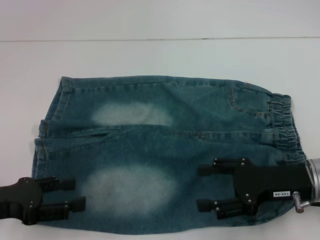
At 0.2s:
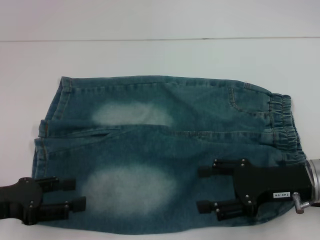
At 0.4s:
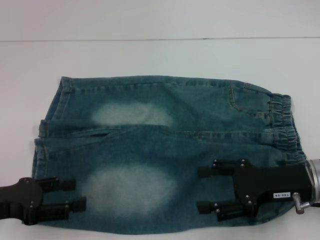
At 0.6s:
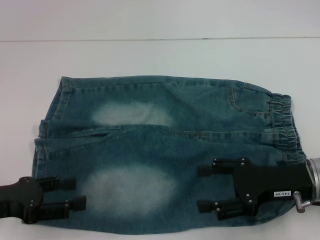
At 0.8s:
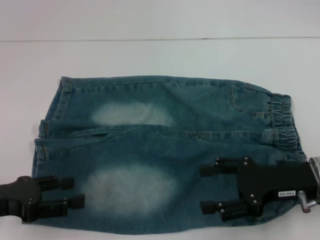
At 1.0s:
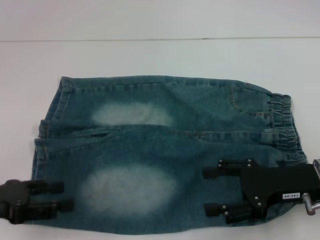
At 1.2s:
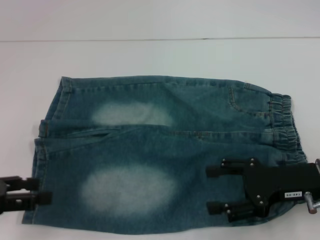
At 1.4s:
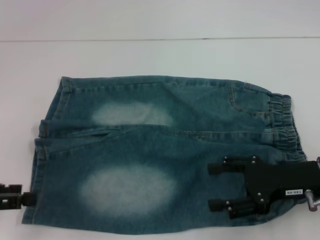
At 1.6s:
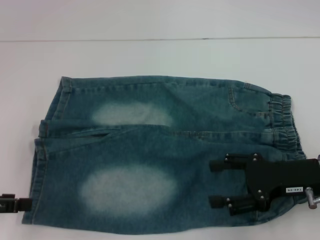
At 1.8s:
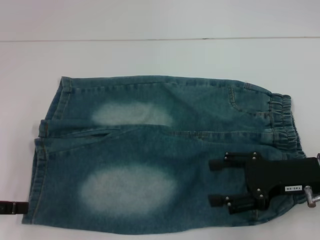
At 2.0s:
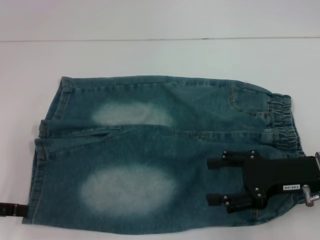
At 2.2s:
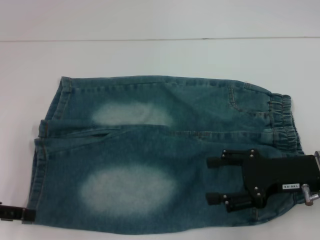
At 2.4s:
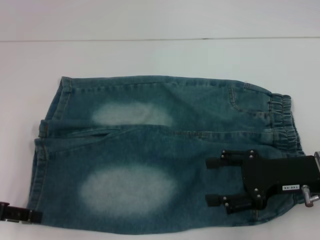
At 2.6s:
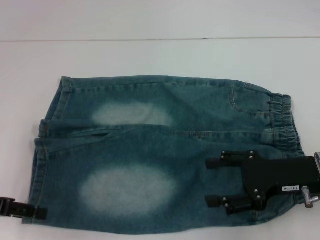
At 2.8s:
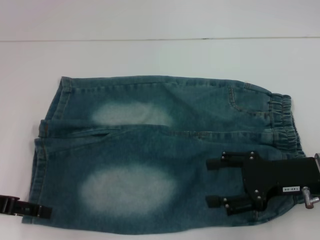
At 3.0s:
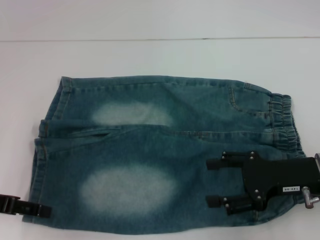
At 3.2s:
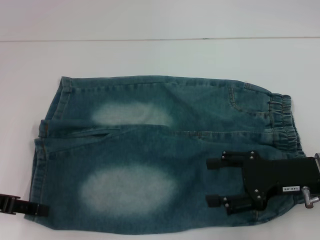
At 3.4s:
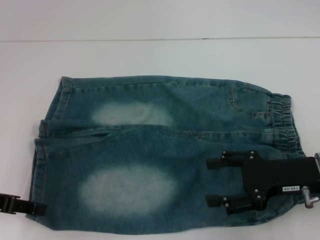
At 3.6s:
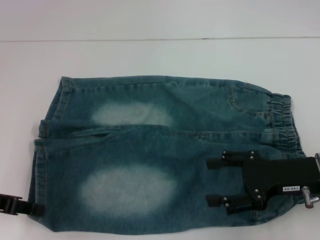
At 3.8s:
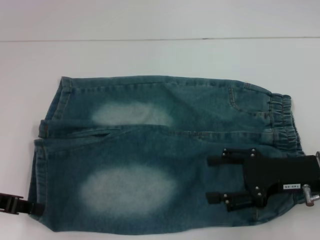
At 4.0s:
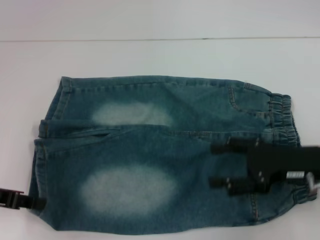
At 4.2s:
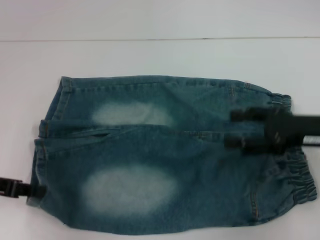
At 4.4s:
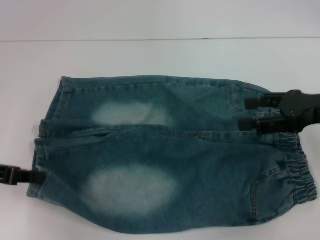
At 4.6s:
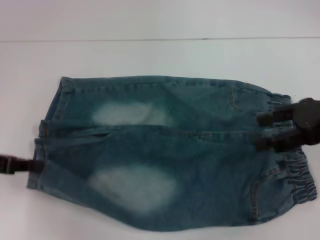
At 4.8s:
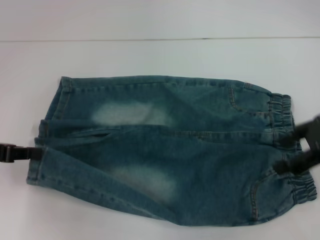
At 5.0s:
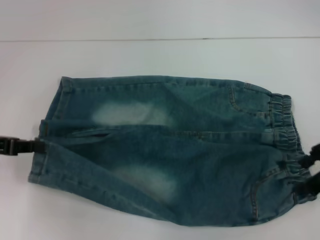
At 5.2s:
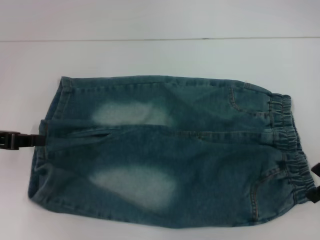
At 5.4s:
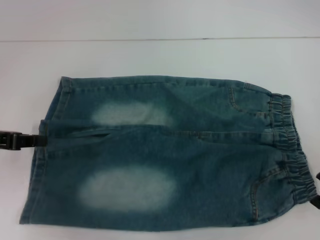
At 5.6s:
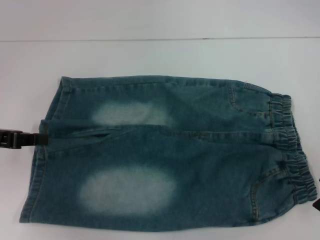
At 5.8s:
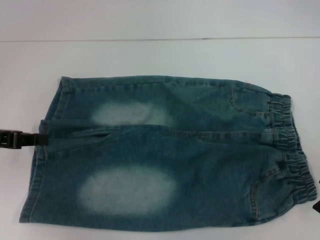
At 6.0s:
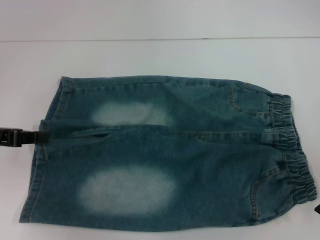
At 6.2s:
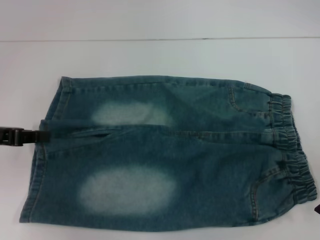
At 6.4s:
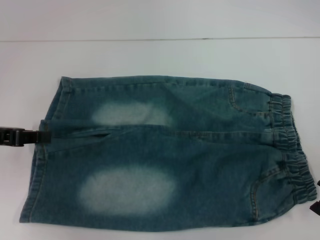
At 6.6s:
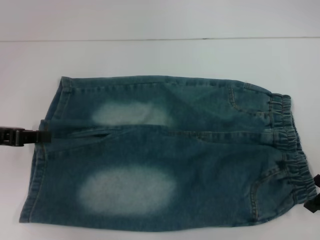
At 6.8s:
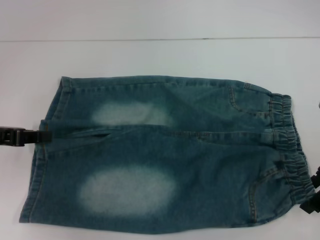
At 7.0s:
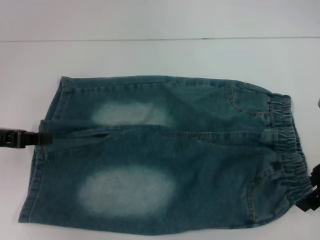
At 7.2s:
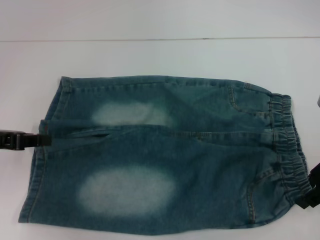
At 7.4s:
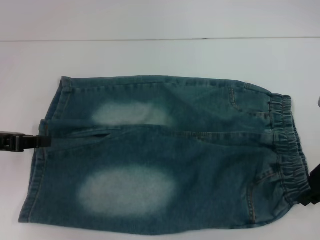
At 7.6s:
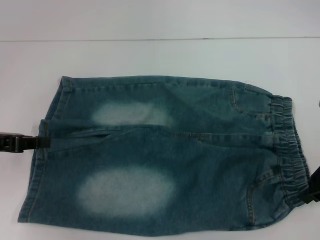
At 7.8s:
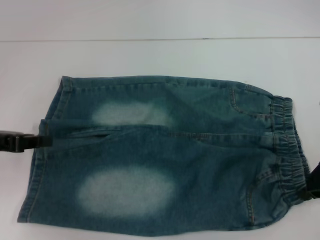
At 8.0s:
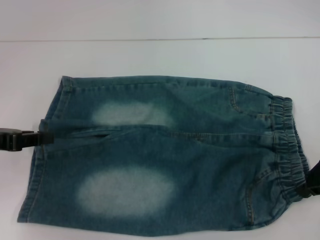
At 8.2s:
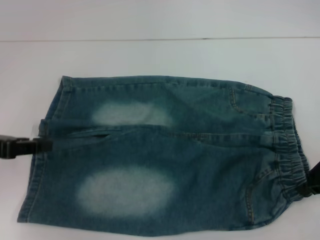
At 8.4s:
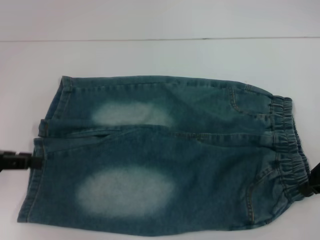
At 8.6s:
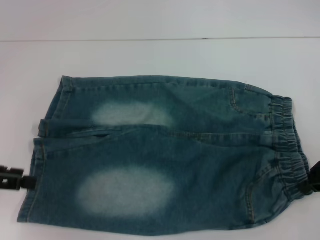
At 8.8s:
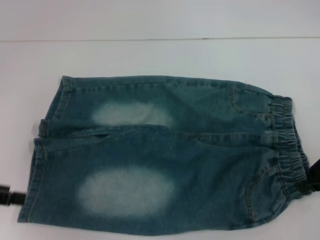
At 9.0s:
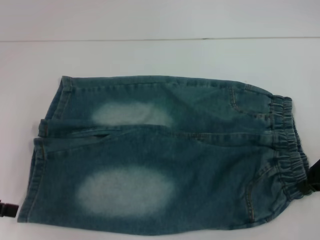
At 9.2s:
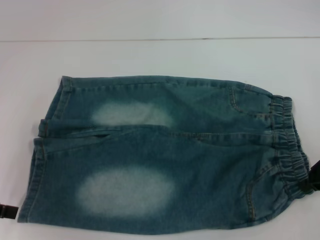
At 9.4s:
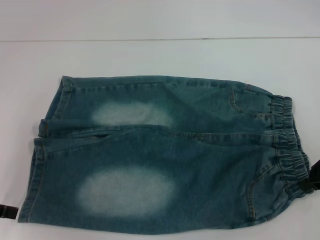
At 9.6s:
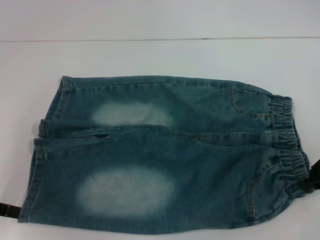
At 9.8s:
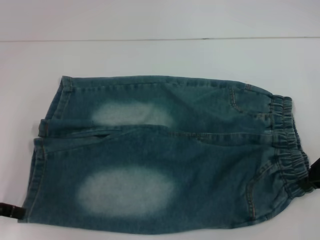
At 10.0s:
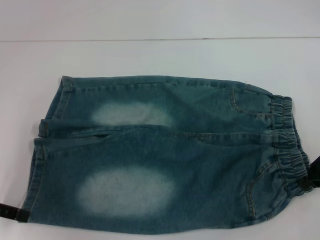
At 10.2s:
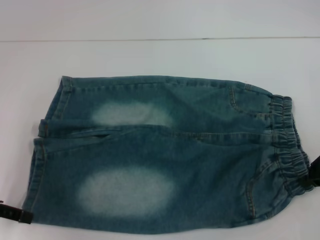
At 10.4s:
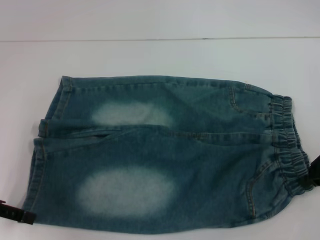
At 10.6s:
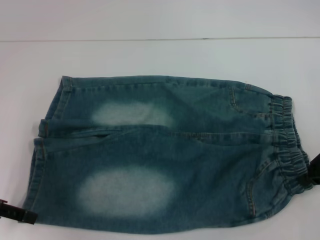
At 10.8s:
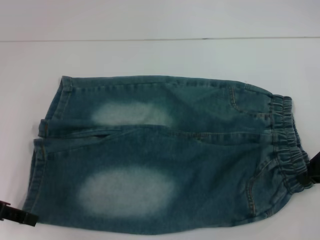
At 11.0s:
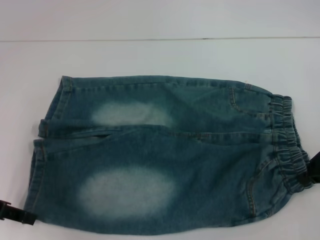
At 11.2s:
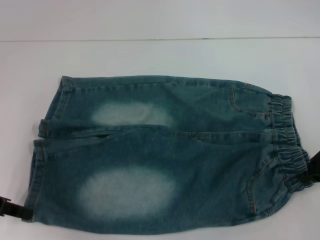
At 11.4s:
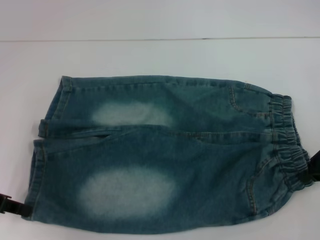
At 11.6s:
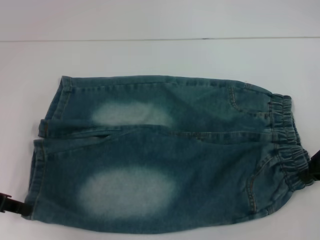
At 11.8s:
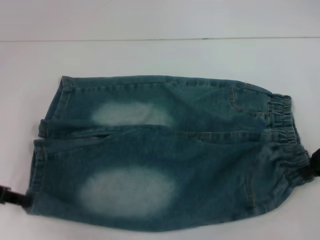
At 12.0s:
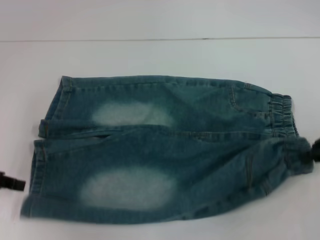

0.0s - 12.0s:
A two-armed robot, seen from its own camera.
Step, 0.0s - 7.8s: Hold the lower right waistband with your right hand.
0.0s - 1.6s: The left gripper changes place by approximately 5 cm.
1.6s - 3.0s: The left gripper changes place by approximately 5 cm.
3.0s - 4.4s: The right gripper goes roughly 10 cm upward; the left gripper closes.
6.0s - 7.6s: The right gripper closes its fingers.
7.6s - 9.0s: The left gripper moves roughly 5 cm, and opens.
9.0s - 10.4s: The grippers stay close to where they were, moving slightly.
10.4s - 12.0s: The left gripper closes its fingers.

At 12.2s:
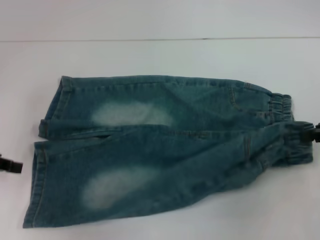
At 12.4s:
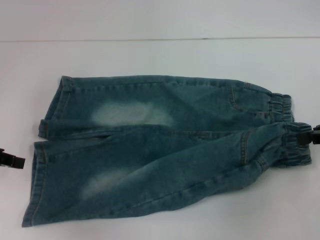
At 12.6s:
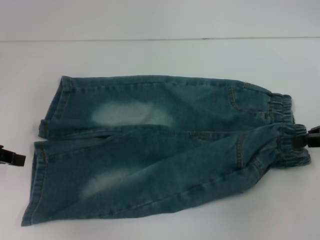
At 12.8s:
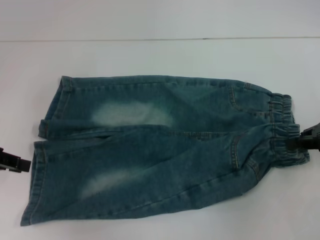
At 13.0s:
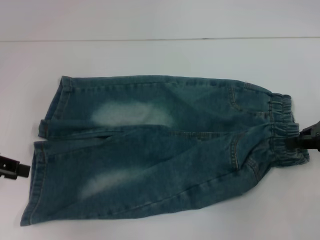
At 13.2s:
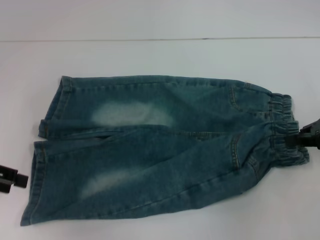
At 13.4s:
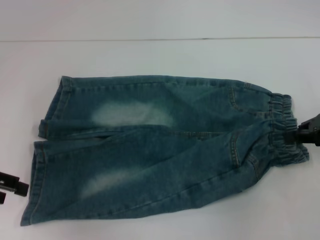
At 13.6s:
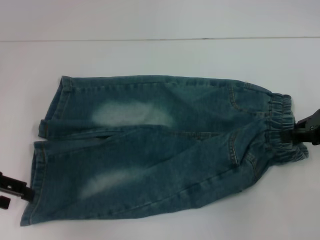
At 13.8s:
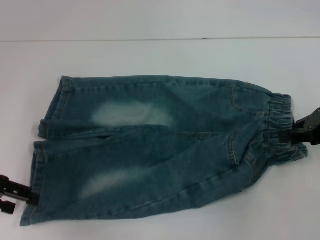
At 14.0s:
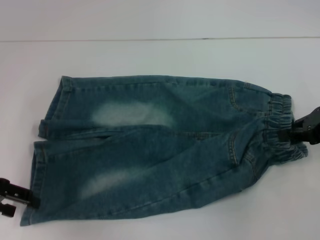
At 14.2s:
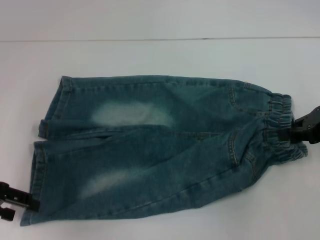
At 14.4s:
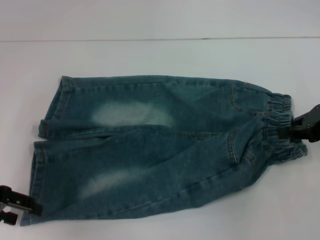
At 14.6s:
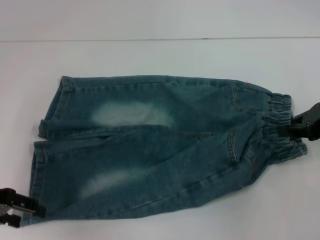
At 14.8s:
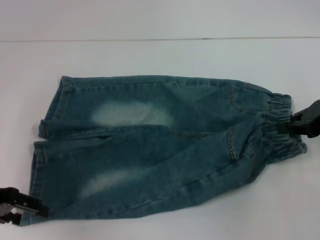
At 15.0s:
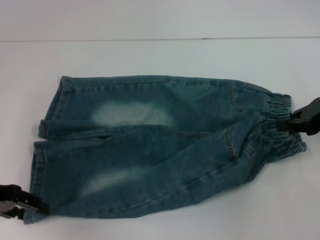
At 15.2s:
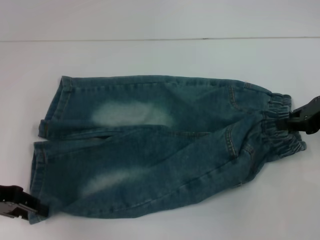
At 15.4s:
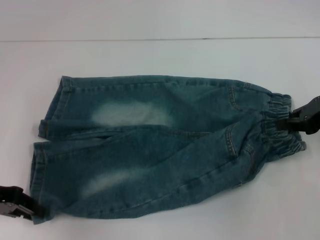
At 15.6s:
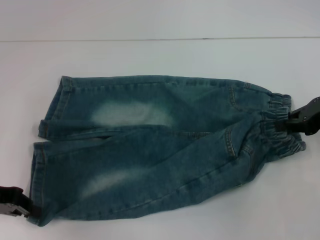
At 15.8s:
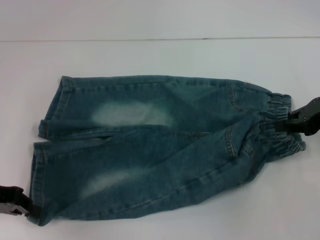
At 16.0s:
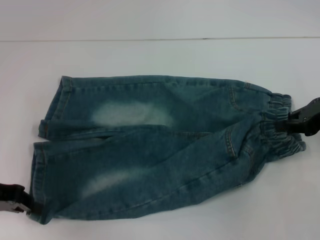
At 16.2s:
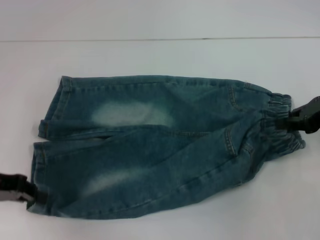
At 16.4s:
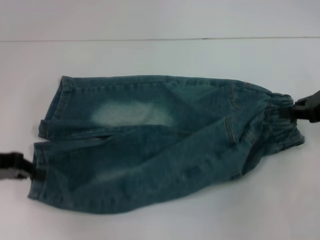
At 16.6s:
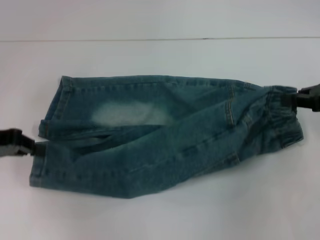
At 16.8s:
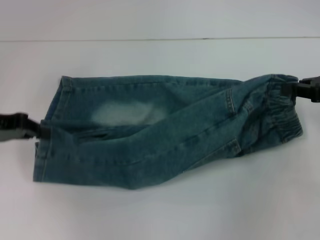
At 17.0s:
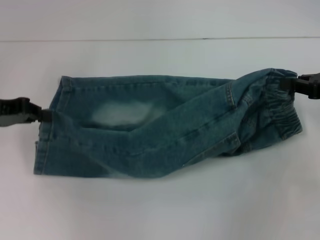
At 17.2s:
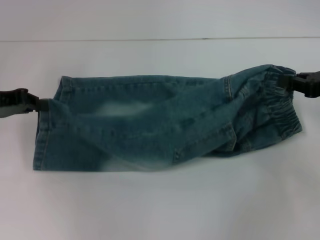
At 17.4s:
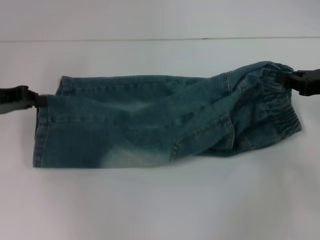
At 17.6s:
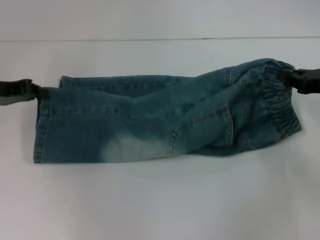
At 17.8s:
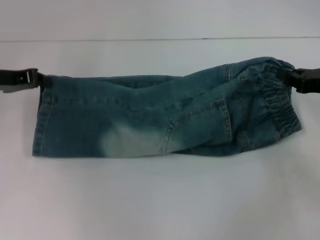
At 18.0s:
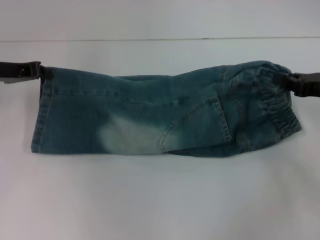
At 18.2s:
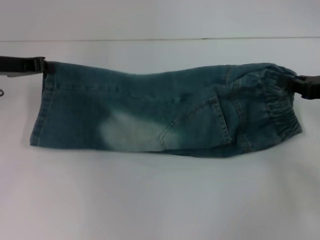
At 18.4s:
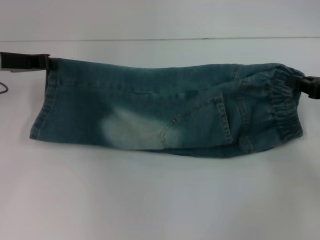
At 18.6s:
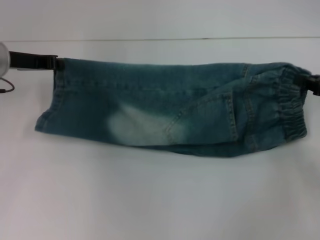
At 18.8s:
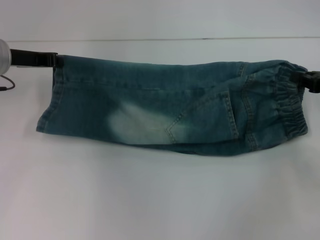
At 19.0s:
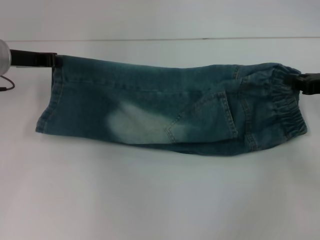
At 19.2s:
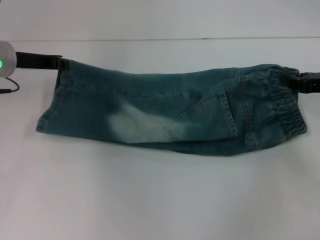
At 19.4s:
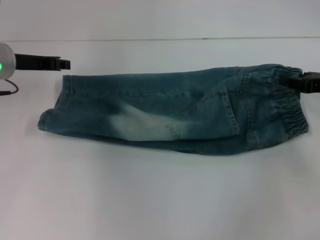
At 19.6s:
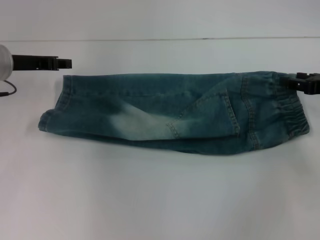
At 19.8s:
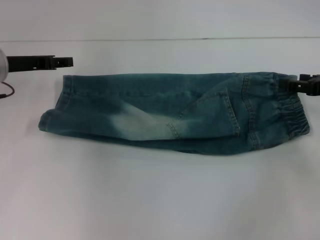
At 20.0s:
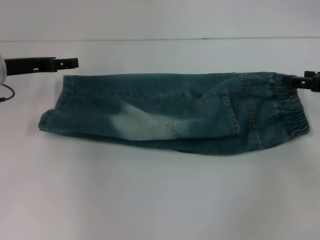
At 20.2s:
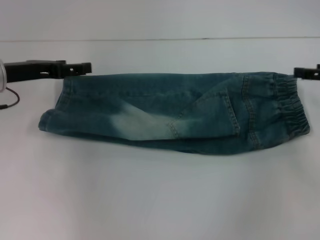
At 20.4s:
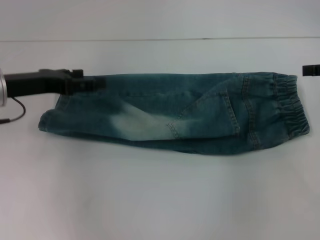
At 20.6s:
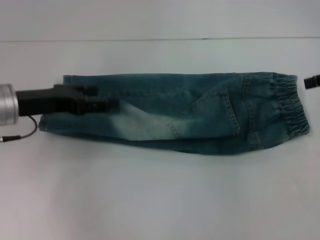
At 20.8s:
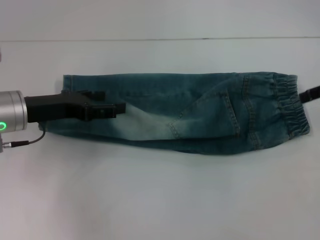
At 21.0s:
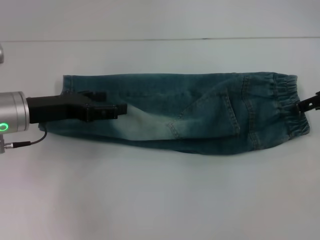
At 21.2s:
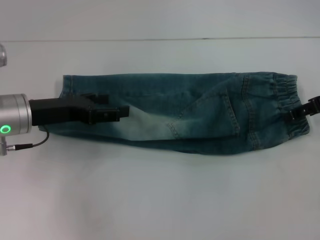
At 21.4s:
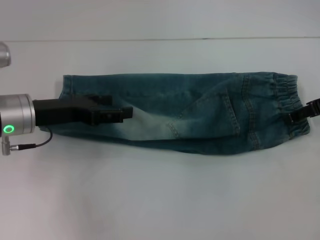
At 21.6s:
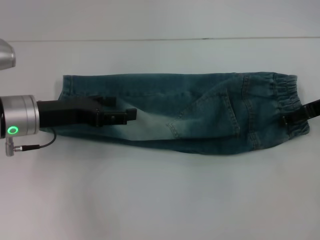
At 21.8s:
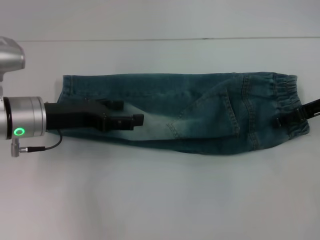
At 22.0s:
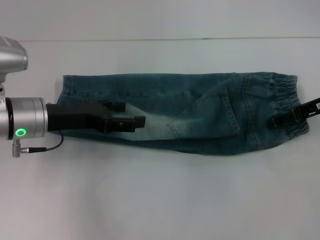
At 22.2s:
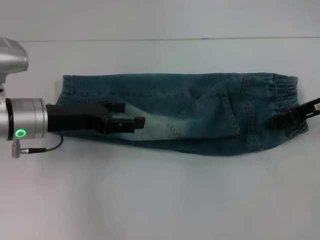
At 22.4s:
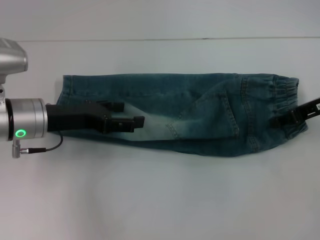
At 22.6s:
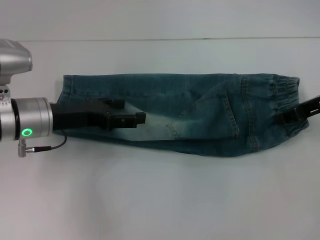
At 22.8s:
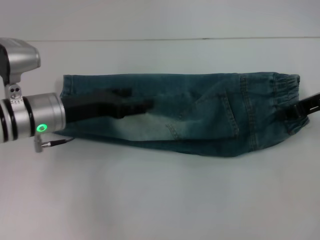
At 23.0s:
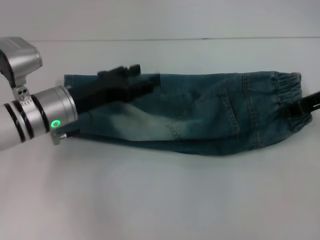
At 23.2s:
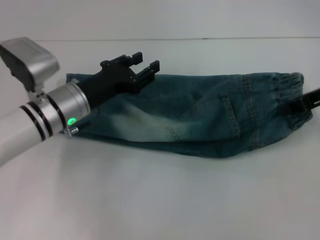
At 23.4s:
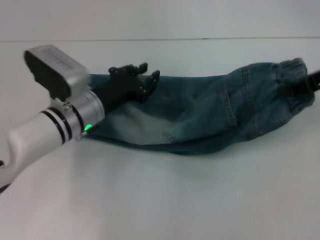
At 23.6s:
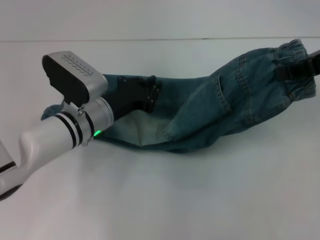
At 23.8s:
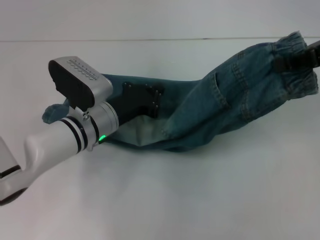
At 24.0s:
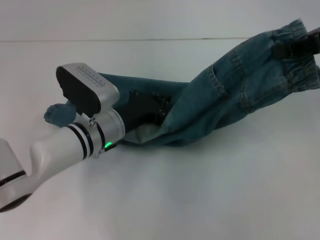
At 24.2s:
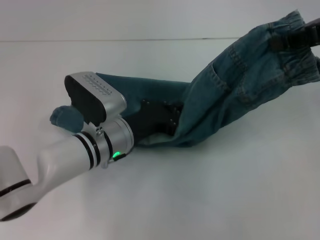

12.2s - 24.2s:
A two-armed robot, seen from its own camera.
Step, 12.2s - 15.6s: Grab the lower left pant leg with your left hand.
Step, 15.8s - 19.2s: Fold upward with your left hand.
Step, 19.4s - 19.6s: Fold upward with your right hand.
Step, 19.8s - 22.4s: Grab the waistband with your right hand.
12.2s - 13.8s: The left gripper opens up.
13.8s - 15.2s: There are only small adjustments of the grippers.
15.2s - 16.6s: The left gripper closes its fingers.
16.6s - 18.2s: The left gripper is displaced forward by some 10 cm.
18.2s - 19.8s: The right gripper opens its fingers, while the left gripper opens.
19.8s - 21.2s: The right gripper shifts some 5 cm upward. The left gripper shifts about 5 cm backward, and opens its fingers.
21.2s - 22.6s: The right gripper closes its fingers.
22.6s - 24.2s: The left gripper goes approximately 15 cm to the right and downward, and closes; the right gripper shifts some 15 cm upward, and closes.
